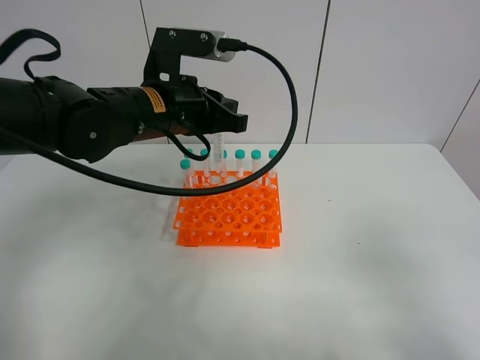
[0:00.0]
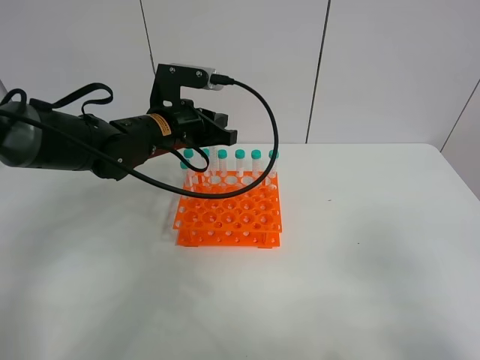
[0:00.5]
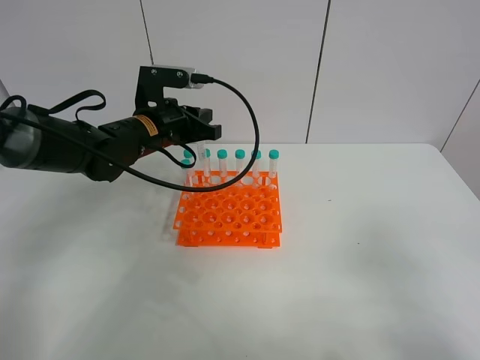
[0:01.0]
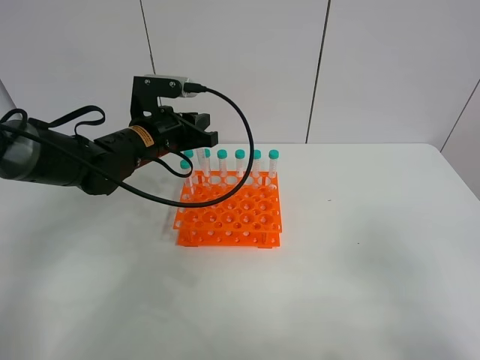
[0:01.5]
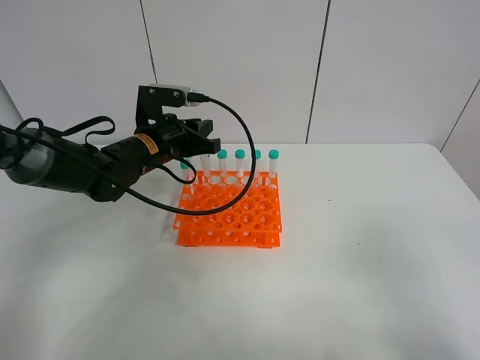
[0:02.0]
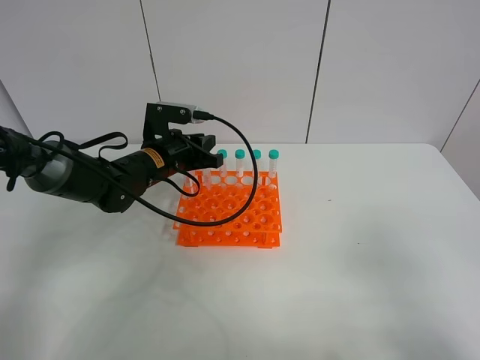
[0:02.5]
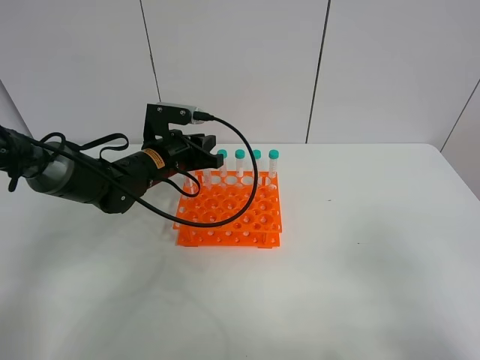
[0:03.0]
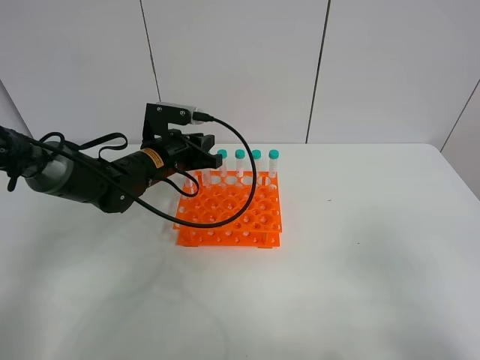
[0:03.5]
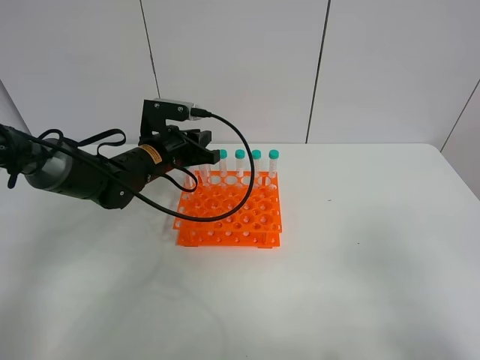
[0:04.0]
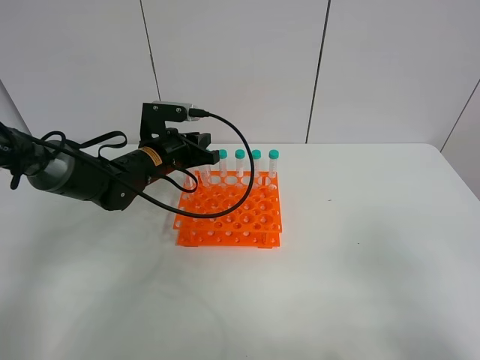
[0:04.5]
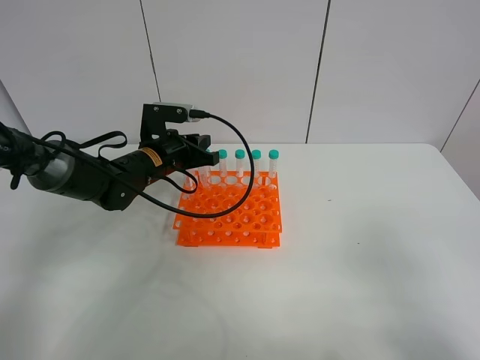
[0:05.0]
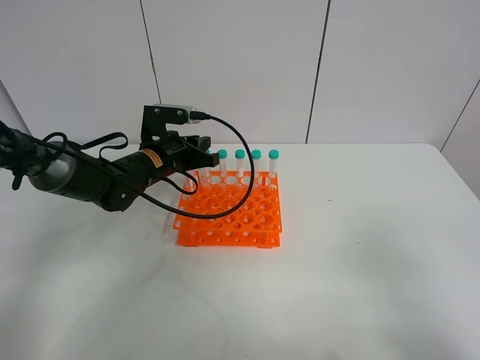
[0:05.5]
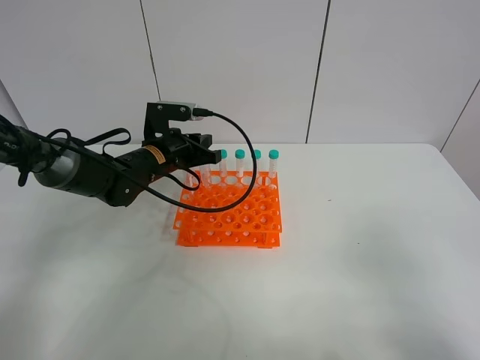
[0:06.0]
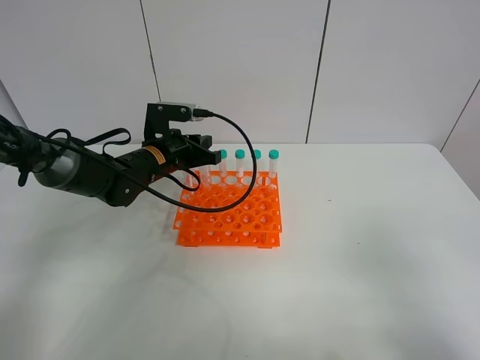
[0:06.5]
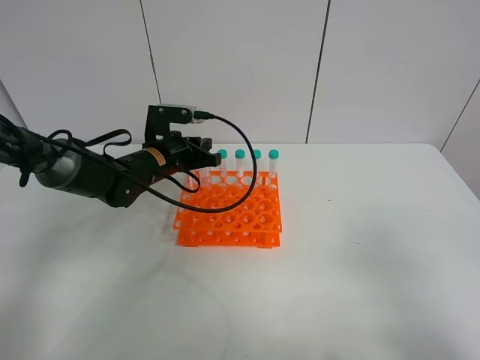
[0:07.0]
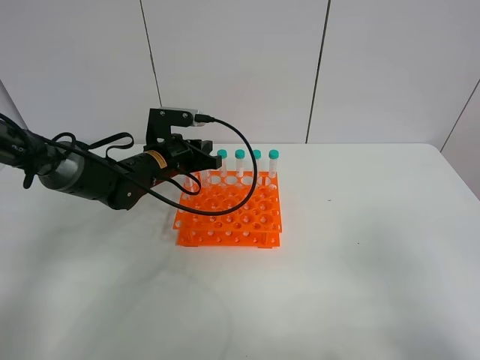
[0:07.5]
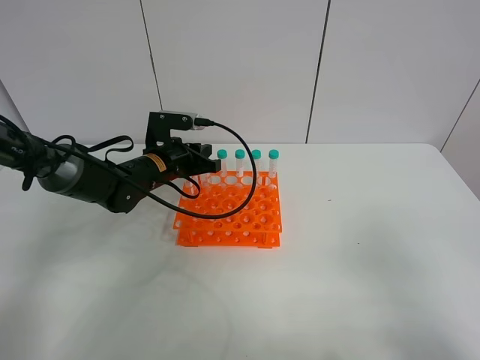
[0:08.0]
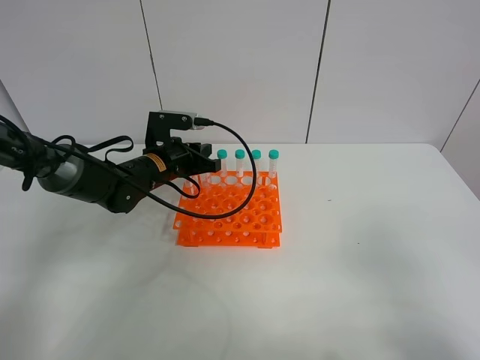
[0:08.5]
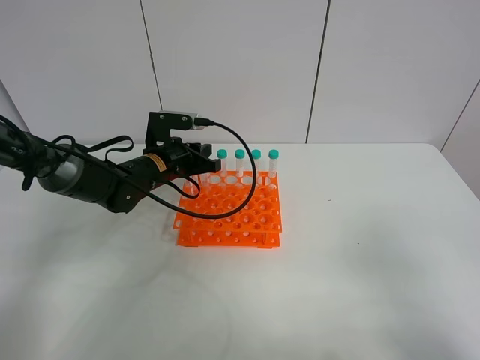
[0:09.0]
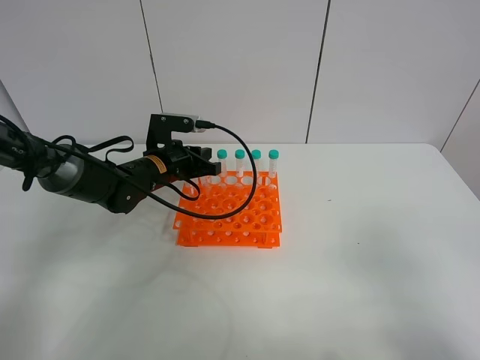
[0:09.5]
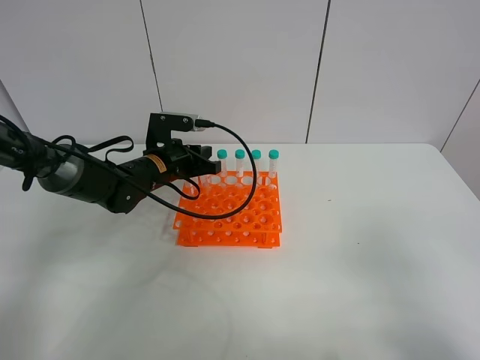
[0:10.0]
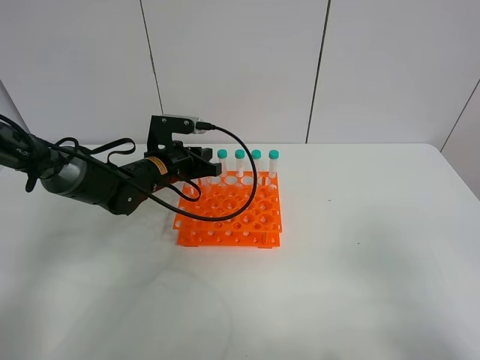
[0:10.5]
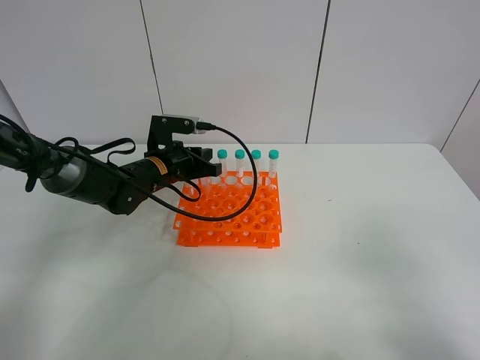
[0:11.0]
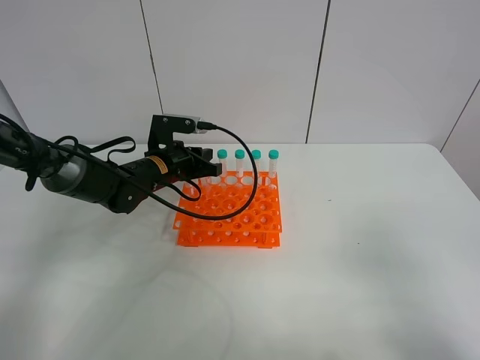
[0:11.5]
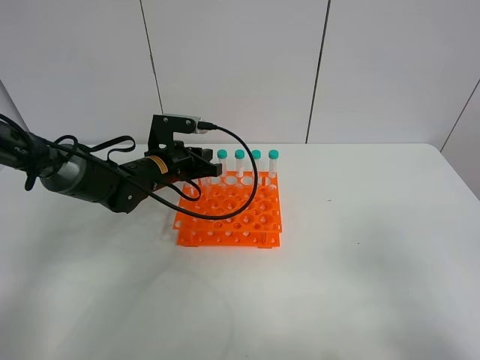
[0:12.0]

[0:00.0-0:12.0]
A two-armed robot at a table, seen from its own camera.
Task of the whole recording: Put the test tube on the table back onto the test tube rack.
0:00.0 to 0:02.0: The left gripper moves downward and forward, roughly 10 cm.
0:02.0 to 0:04.0: The grippers stay close to where they were, moving slightly.
0:04.0 to 0:06.0: Both grippers stay about where they are.
0:06.0 to 0:08.0: The two grippers keep their place.
0:08.0 to 0:12.0: Both grippers stay about where they are.

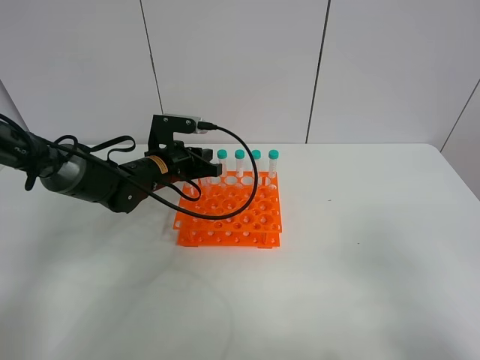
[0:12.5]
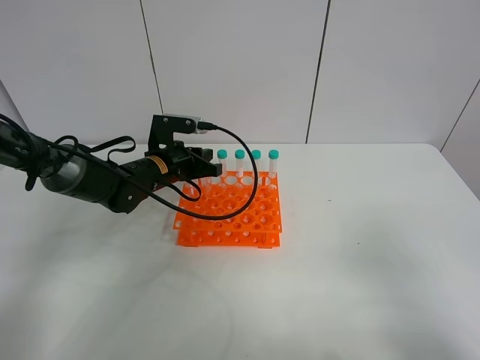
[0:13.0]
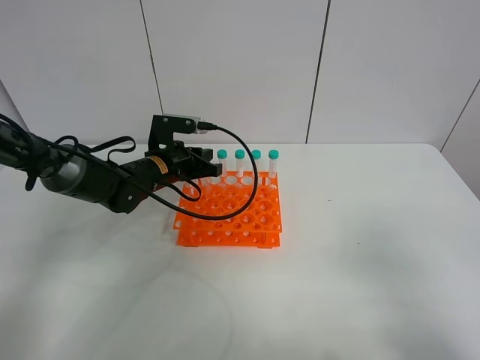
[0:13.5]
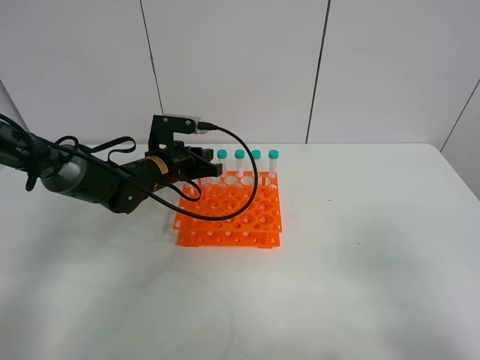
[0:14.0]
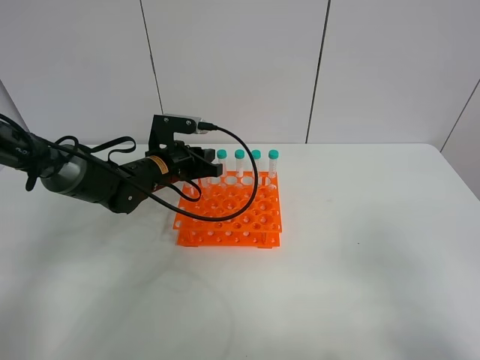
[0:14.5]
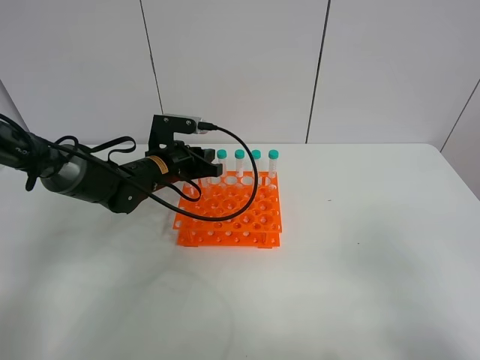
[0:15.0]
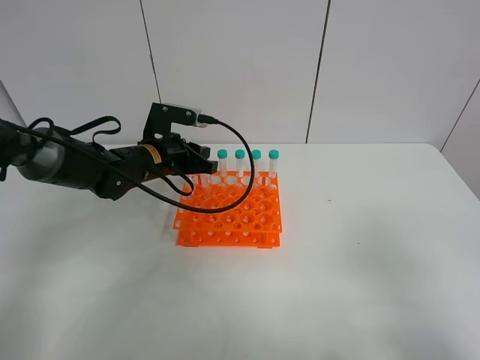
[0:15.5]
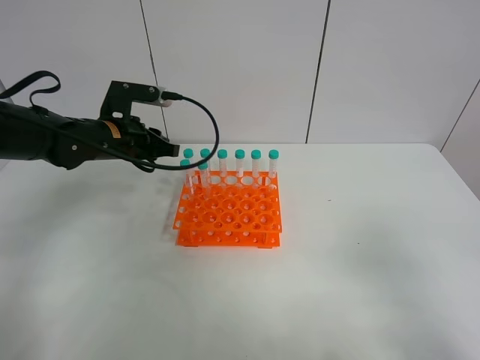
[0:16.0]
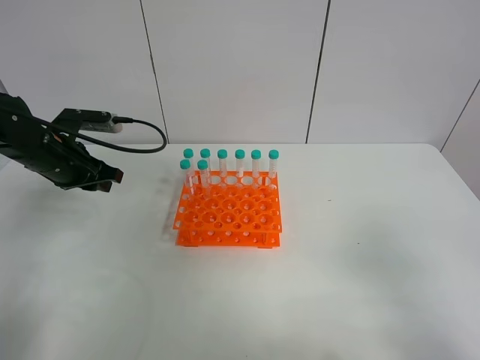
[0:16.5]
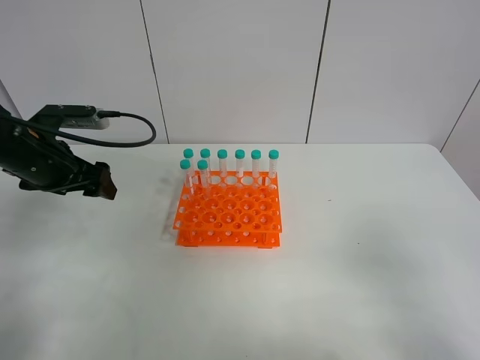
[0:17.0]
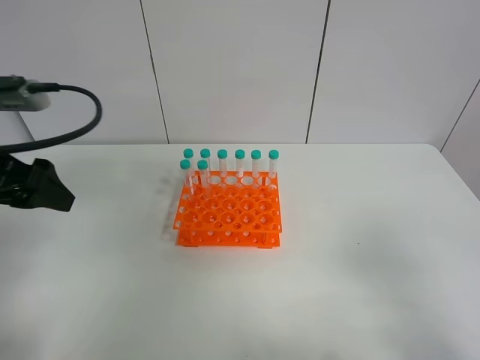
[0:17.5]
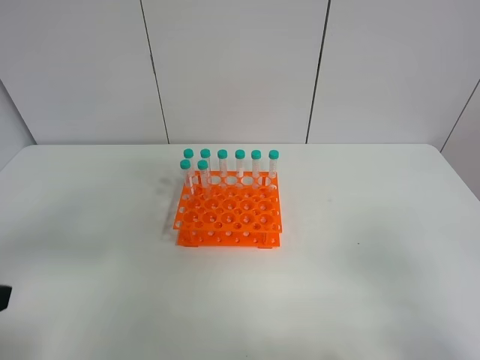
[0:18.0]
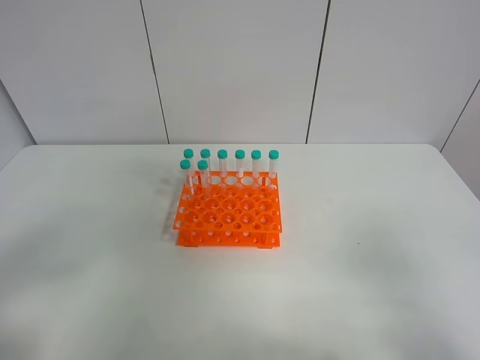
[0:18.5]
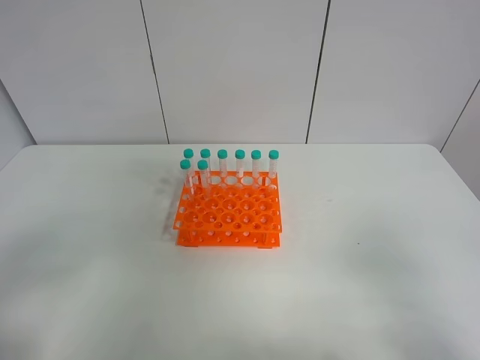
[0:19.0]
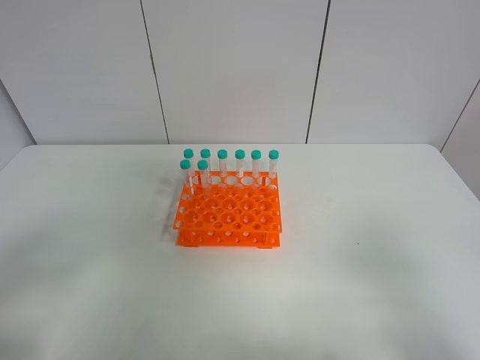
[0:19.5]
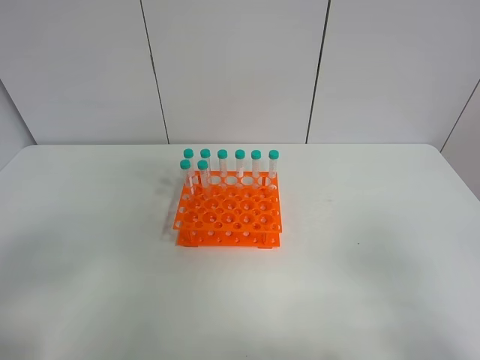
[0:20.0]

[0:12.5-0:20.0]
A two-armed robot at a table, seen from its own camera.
Task of the whole recording: Put the test tube on the table back onto the test tube rack.
Step, 0:12.5 to 0:16.0: Place the test tube on the test tube rack with the left gripper.
0:12.5 to 0:14.5: Neither gripper changes place.
0:14.5 to 0:16.5: The left gripper moves to the left and upward, roughly 15 cm.
0:16.5 to 0:18.0: The left gripper goes roughly 30 cm backward, and opens its fingers.

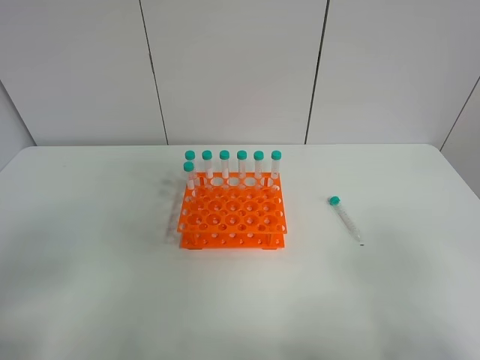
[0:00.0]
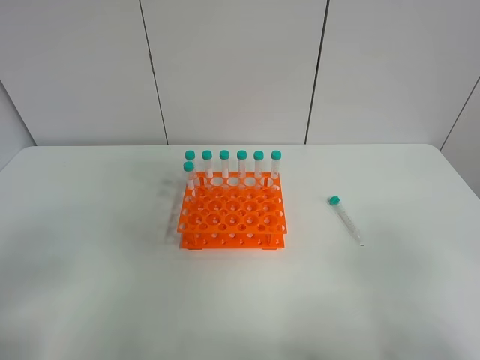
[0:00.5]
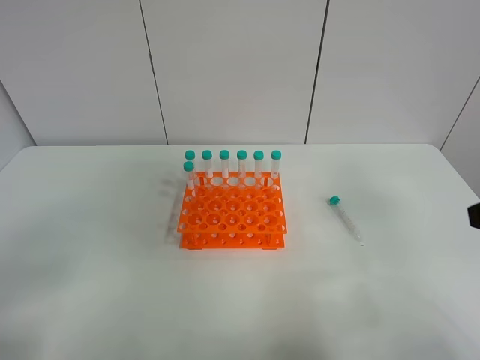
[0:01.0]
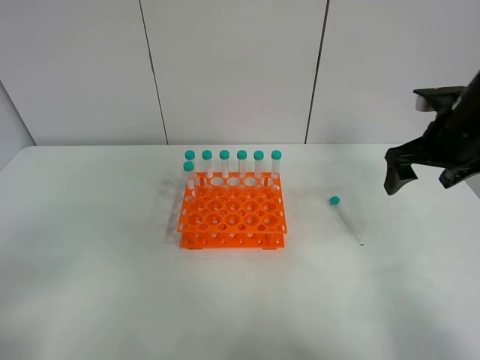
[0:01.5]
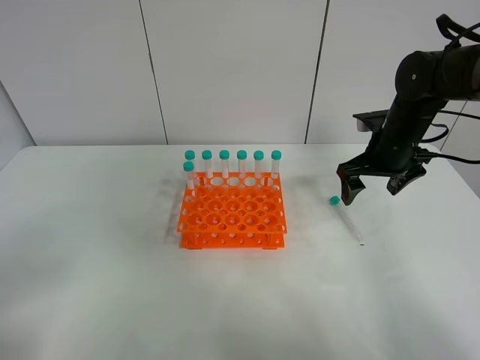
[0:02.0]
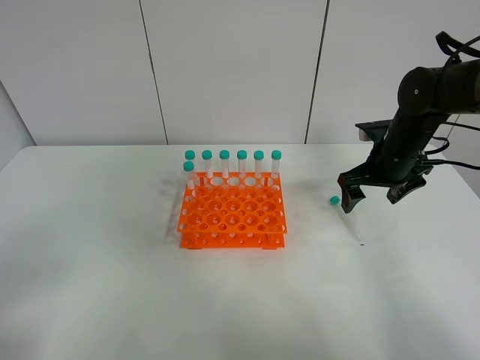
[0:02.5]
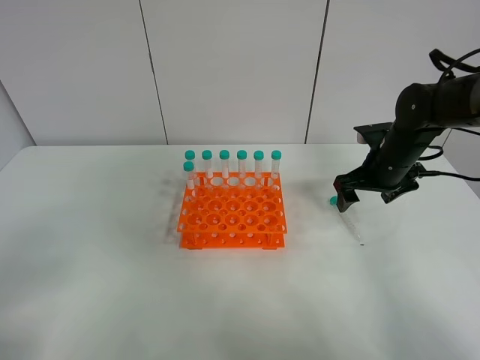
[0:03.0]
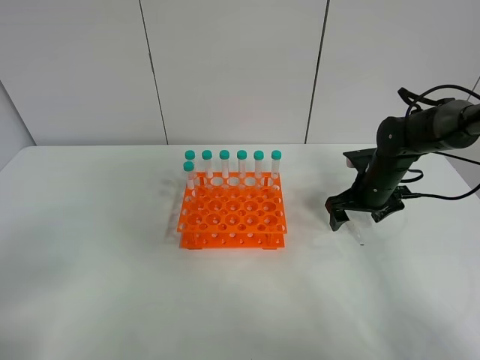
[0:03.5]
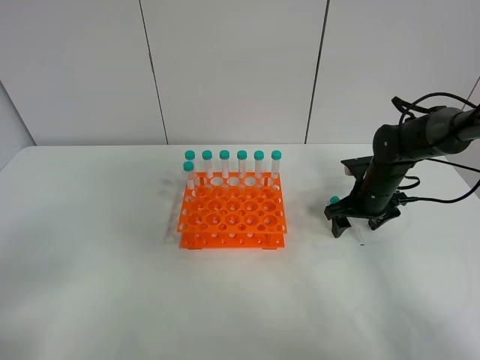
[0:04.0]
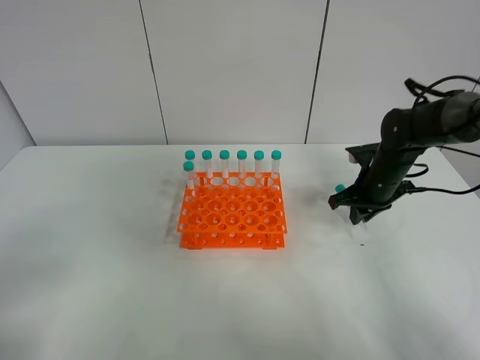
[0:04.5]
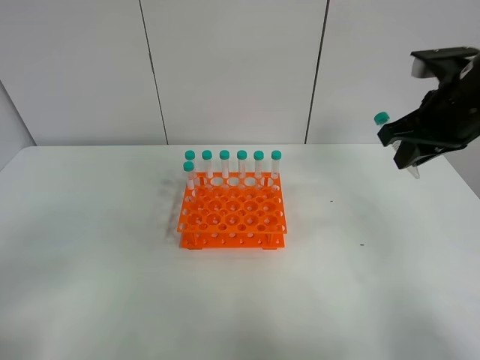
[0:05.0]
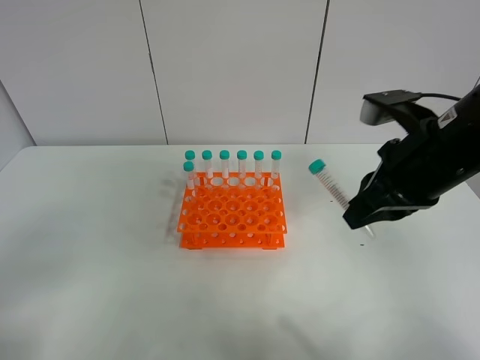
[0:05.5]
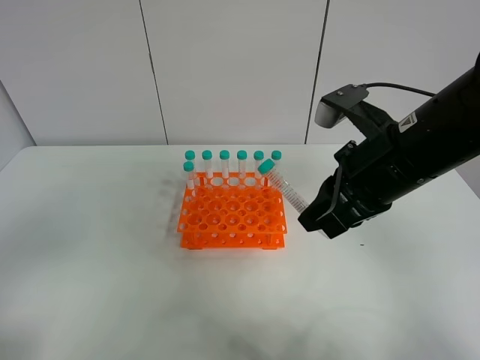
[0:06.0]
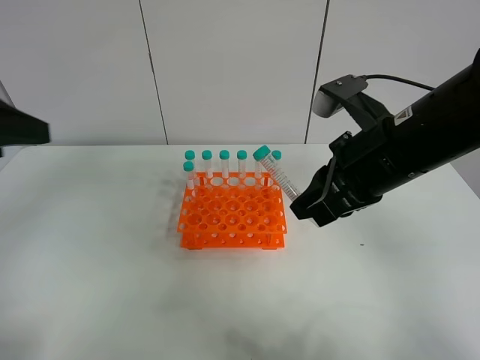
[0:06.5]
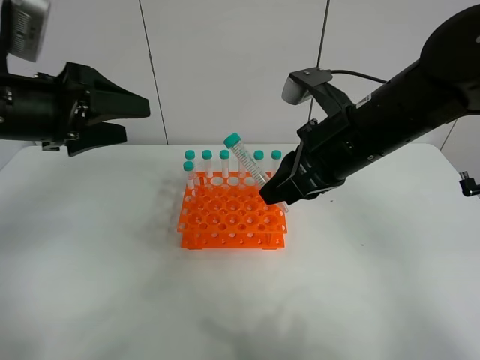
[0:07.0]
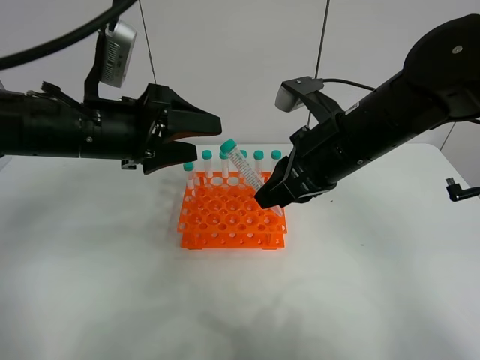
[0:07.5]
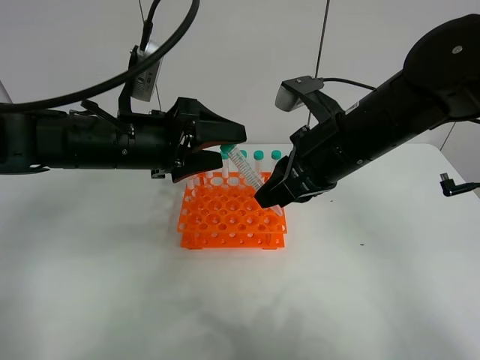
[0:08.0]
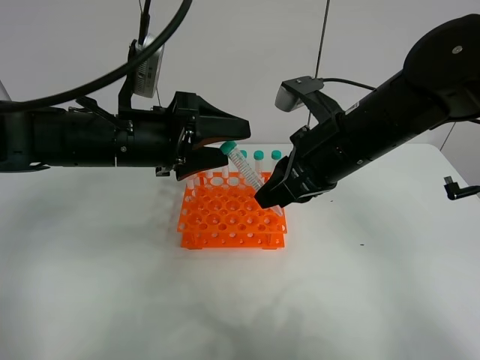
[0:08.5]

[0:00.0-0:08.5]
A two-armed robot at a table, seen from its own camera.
Task of the whole recording: Put the test tube on the table back onto the test tube rack.
Step, 0:00.0 to 0:04.5: Pick up the test tube with the right gripper.
0:00.0 to 0:02.0: The right gripper travels forward by roughly 40 cm.
0:02.0 to 0:04.0: The right gripper goes about 10 cm downward.
0:04.0 to 0:06.5: The right gripper moves upward, backward and to the left, some 25 cm, and closes its fingers; the left gripper is displaced forward and upward by about 20 cm.
0:06.5 to 0:08.5: The left gripper heads to the right, downward and forward, covering roughly 20 cm.
